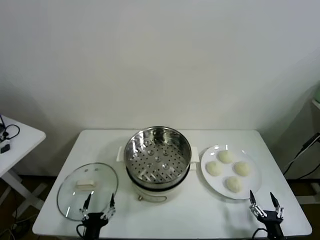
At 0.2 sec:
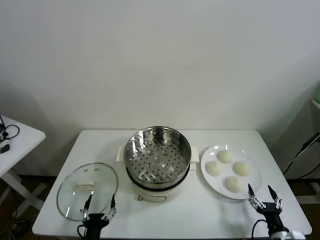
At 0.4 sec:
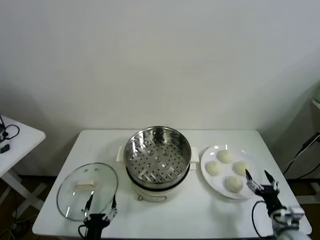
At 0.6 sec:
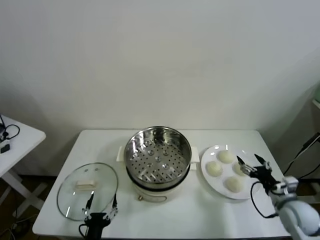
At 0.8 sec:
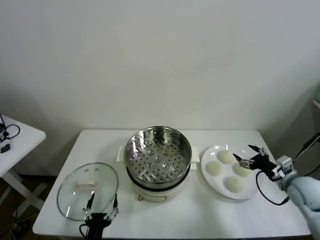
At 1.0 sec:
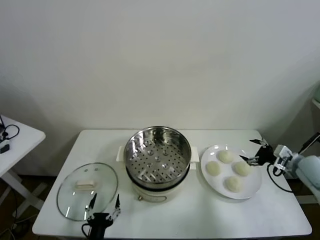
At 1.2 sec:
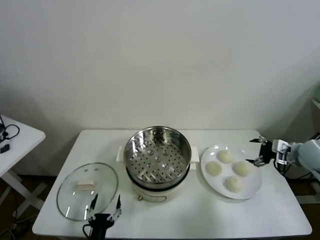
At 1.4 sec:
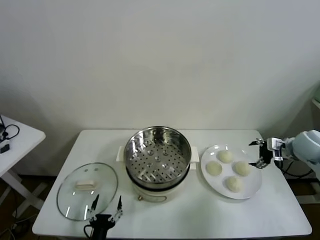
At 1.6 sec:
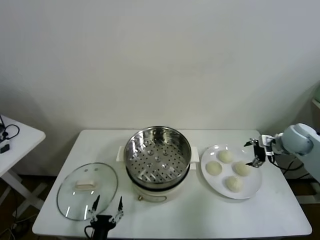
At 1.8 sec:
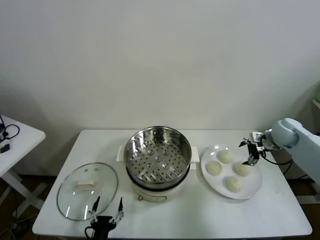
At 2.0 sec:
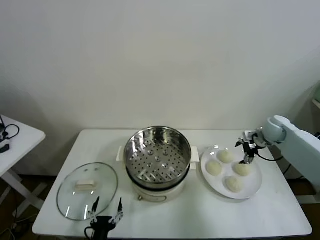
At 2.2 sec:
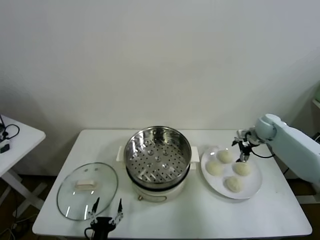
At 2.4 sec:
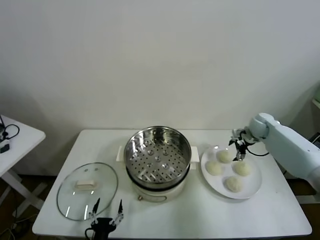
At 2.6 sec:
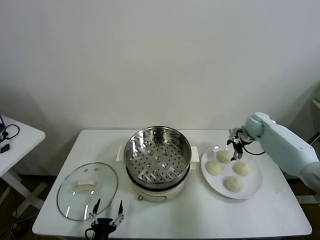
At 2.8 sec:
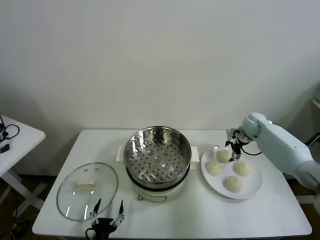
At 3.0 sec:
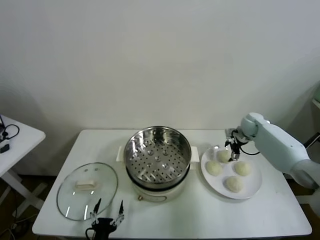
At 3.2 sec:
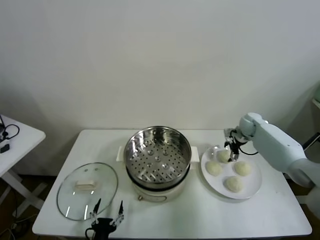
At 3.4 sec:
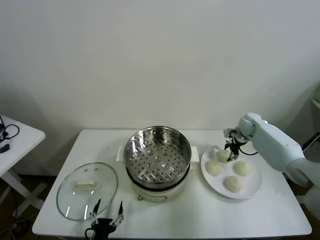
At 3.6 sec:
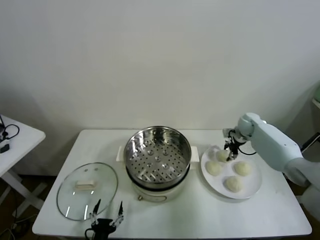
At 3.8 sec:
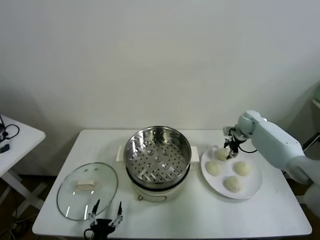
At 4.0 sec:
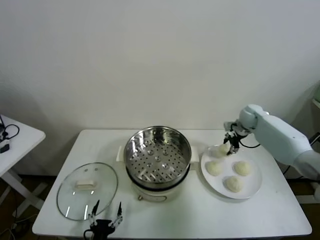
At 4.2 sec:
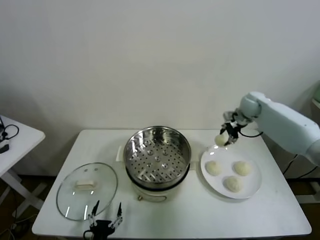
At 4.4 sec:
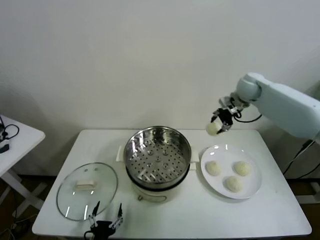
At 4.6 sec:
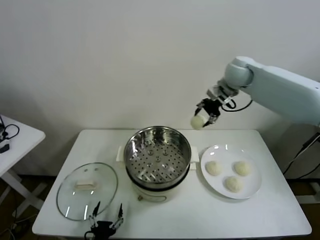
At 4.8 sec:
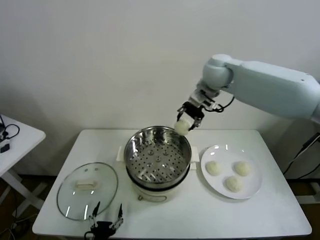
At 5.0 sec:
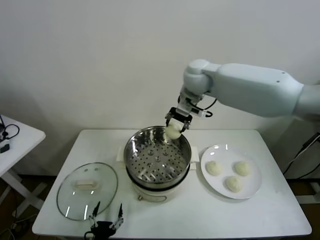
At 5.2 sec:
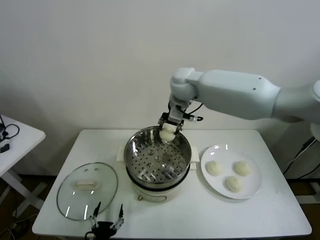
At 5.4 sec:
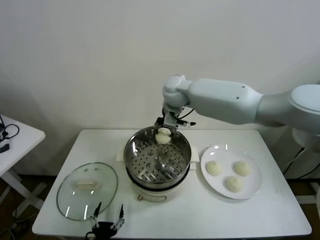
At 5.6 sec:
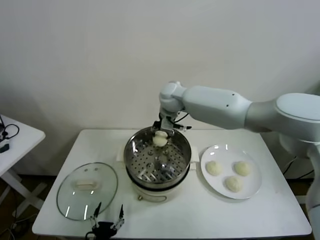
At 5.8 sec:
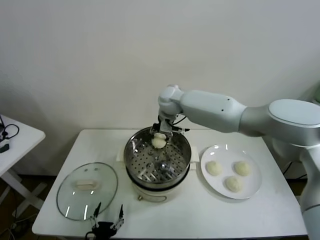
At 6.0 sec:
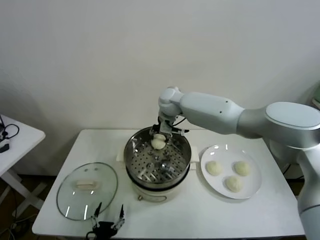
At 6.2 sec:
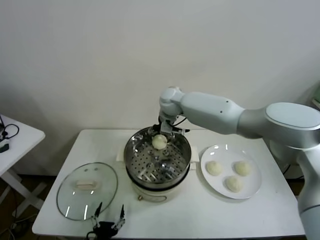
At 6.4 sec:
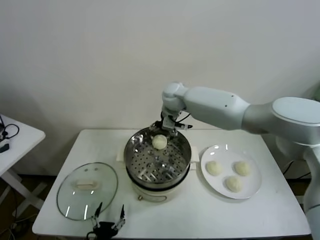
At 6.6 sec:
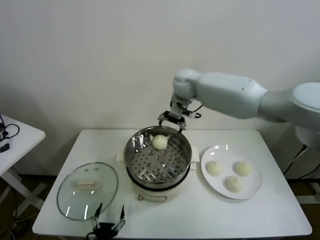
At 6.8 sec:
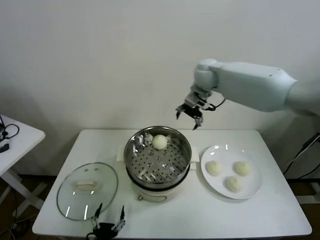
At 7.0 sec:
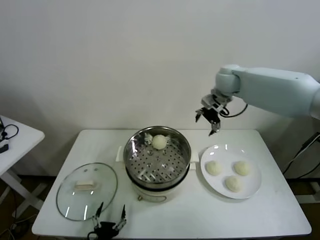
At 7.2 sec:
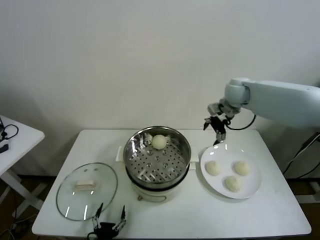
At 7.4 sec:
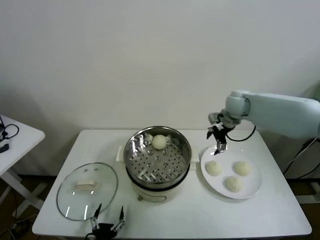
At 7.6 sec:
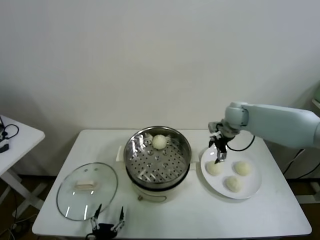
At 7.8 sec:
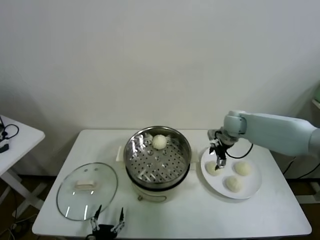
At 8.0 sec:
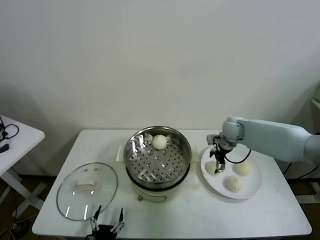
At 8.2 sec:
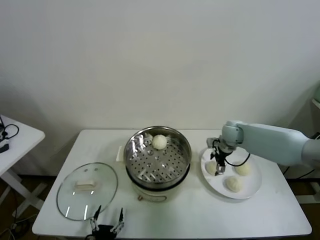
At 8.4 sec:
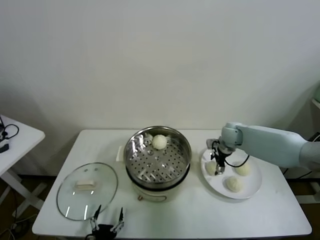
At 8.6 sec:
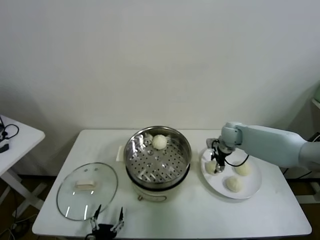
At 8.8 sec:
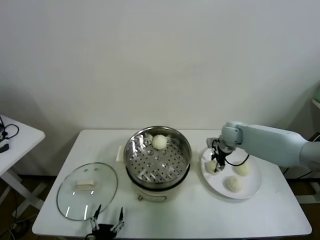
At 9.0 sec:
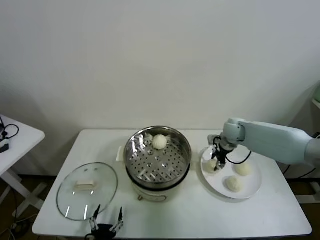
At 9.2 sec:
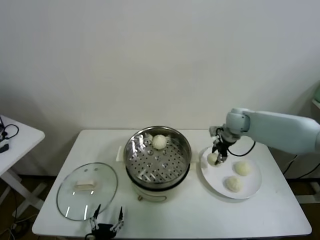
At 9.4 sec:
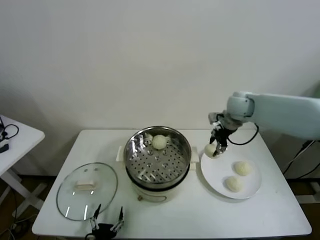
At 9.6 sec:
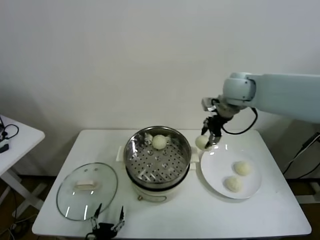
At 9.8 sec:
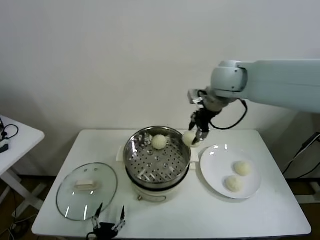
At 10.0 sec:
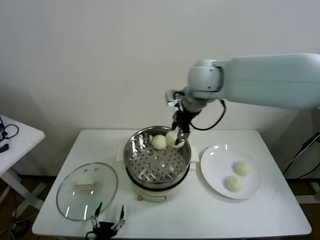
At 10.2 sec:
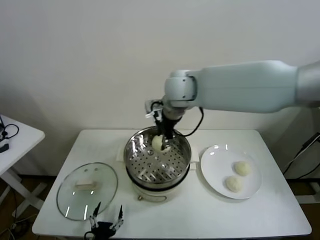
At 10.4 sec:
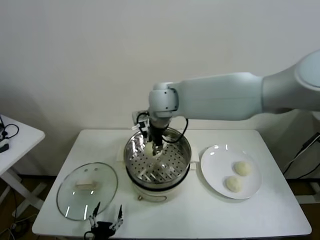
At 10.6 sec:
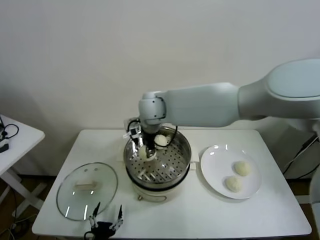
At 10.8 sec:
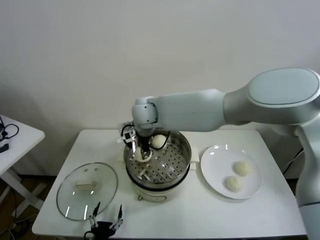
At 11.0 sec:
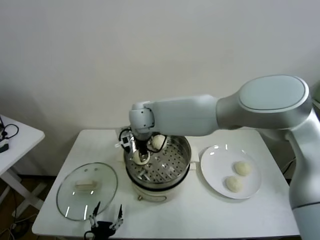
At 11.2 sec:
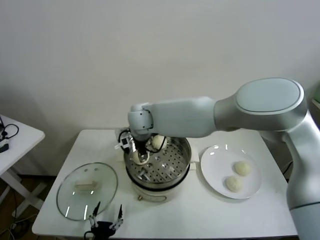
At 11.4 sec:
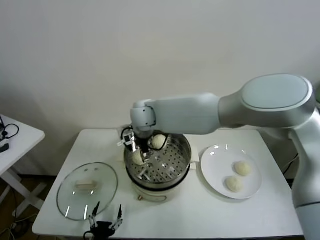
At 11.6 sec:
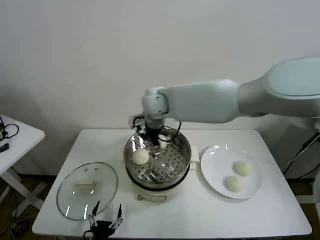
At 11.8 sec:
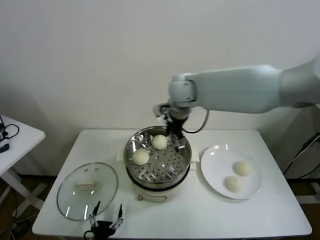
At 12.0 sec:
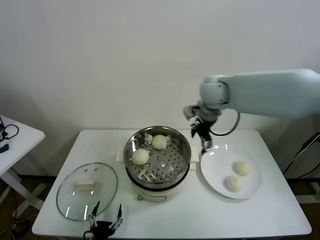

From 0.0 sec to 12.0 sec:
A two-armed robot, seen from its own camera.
Task of the whole recording: take steamed baozi put them in steamer.
Step, from 0.0 sec to 3.2 sec: Grasp the baozi in the plate with right gripper.
Step, from 3.6 sec to 6.2 sec: Place the baozi on the steamer with right gripper.
Step, from 6.4 sec to 8.6 sec: Grasp the baozi in the plate with right gripper.
Step, from 8.8 sec to 11.2 sec: Place the baozi on the steamer with right gripper.
From 1.6 sec to 3.0 sec: The right gripper heads forward, to the left and downward, covering roughly 15 cm.
From 3.0 sec to 4.4 sec: The right gripper shifts approximately 25 cm upward and to the left, and closes its fingers.
From 4.4 sec to 6.0 sec: The right gripper is displaced to the left by some 25 cm.
From 6.0 sec to 7.6 sec: The right gripper shifts some 25 cm to the right, and opens.
From 7.6 sec to 9.0 sec: The right gripper heads downward, covering roughly 5 cm, and closes up.
From 9.0 sec to 10.4 sec: The right gripper travels to the left and upward by about 35 cm.
From 10.4 sec to 12.0 sec: The right gripper shifts about 15 cm to the right, and opens its fingers.

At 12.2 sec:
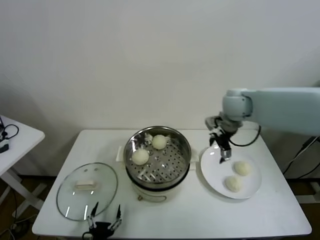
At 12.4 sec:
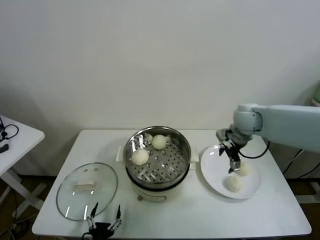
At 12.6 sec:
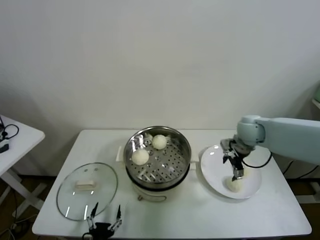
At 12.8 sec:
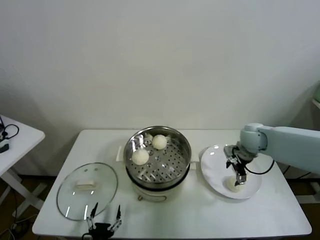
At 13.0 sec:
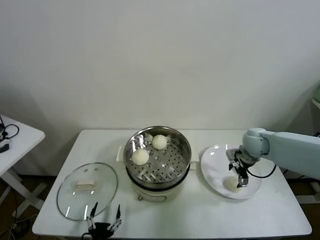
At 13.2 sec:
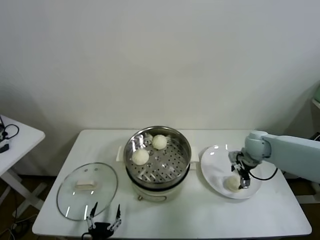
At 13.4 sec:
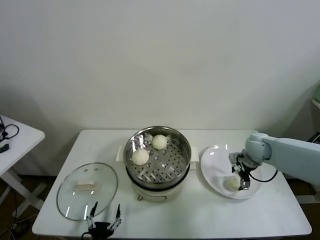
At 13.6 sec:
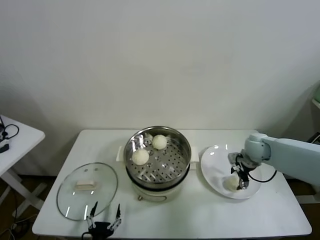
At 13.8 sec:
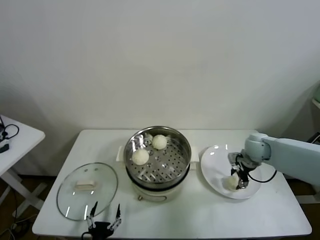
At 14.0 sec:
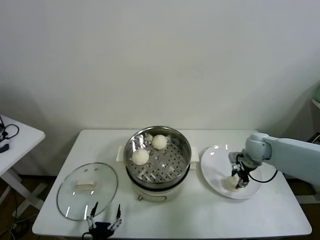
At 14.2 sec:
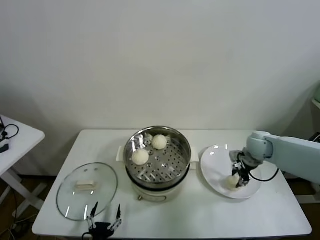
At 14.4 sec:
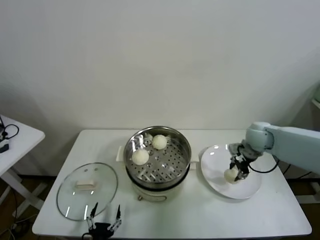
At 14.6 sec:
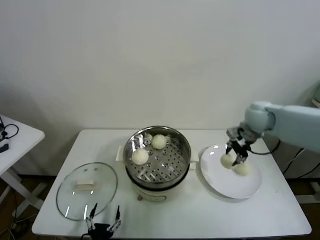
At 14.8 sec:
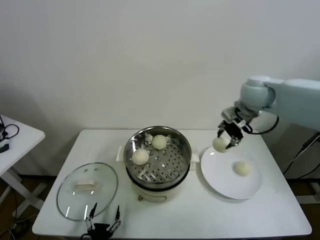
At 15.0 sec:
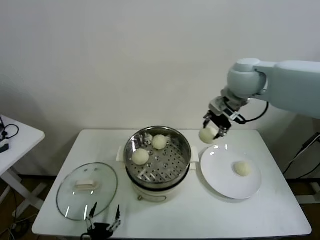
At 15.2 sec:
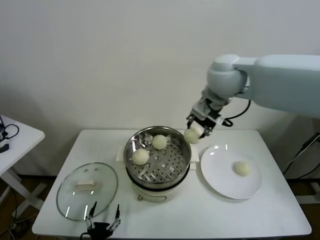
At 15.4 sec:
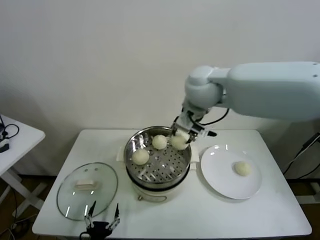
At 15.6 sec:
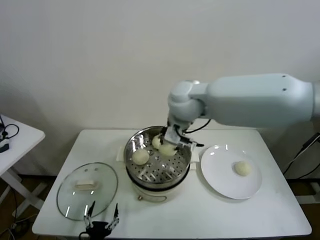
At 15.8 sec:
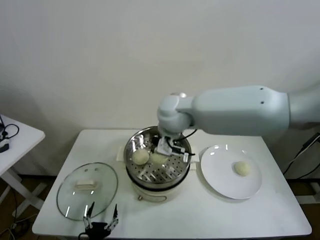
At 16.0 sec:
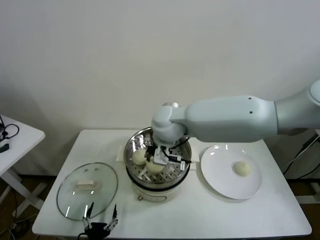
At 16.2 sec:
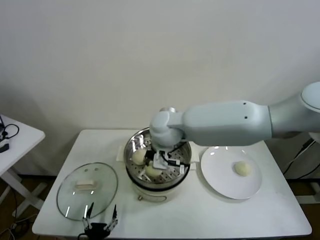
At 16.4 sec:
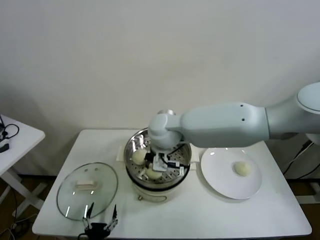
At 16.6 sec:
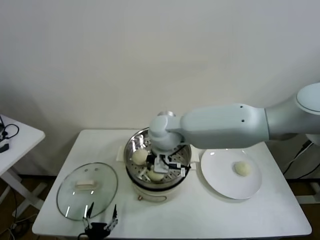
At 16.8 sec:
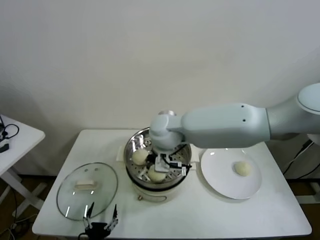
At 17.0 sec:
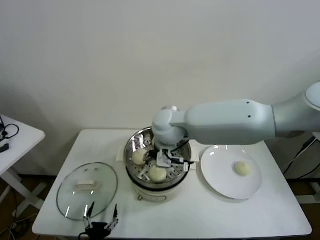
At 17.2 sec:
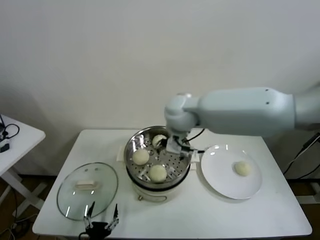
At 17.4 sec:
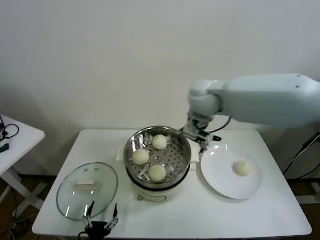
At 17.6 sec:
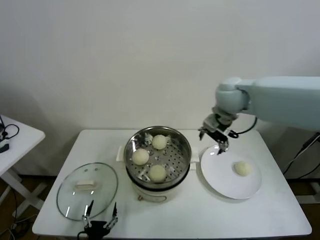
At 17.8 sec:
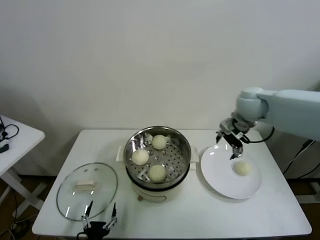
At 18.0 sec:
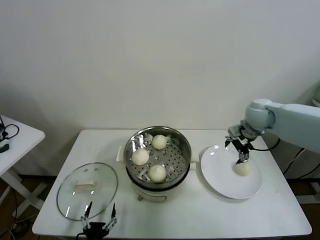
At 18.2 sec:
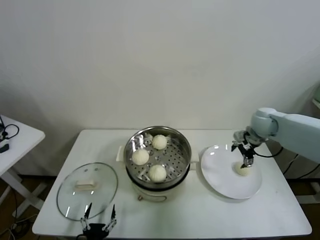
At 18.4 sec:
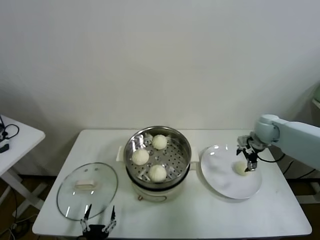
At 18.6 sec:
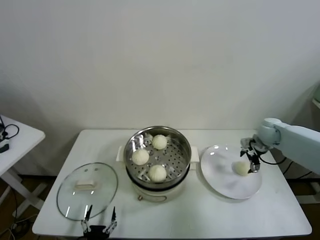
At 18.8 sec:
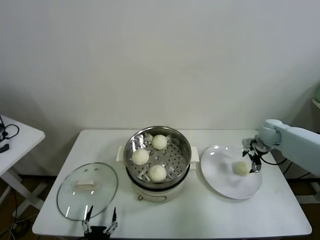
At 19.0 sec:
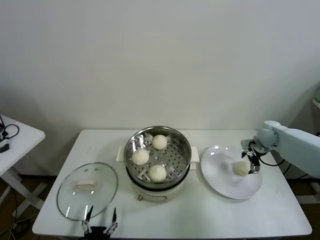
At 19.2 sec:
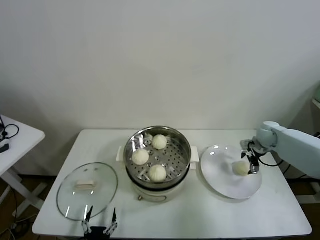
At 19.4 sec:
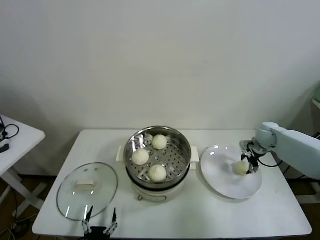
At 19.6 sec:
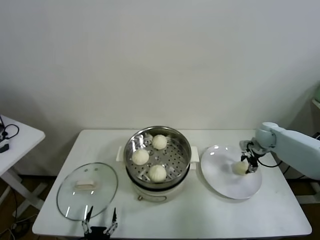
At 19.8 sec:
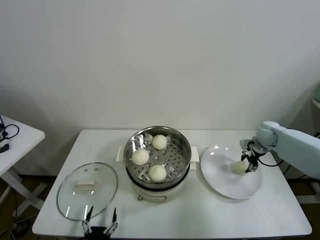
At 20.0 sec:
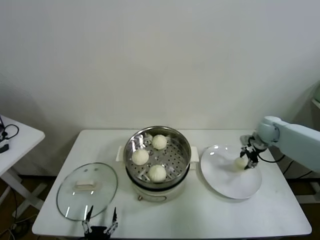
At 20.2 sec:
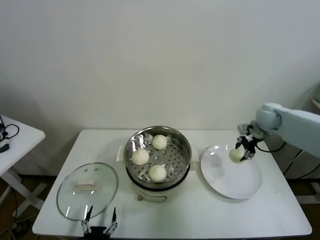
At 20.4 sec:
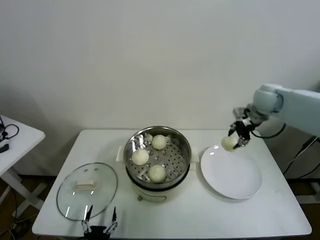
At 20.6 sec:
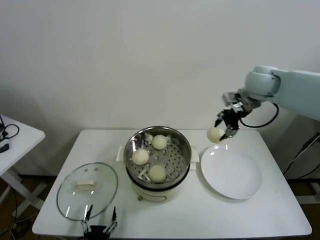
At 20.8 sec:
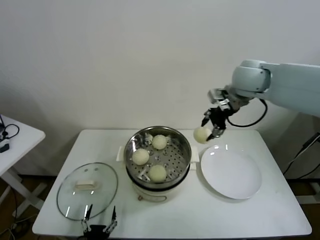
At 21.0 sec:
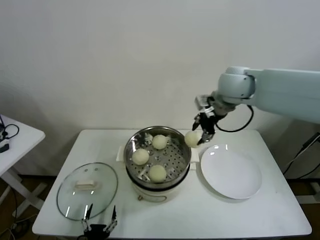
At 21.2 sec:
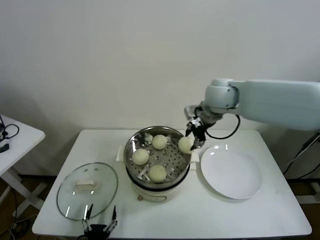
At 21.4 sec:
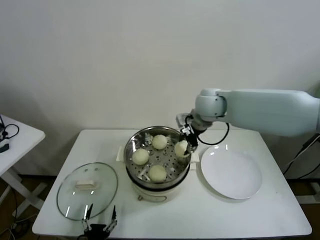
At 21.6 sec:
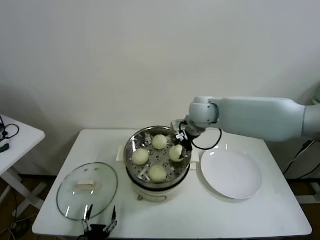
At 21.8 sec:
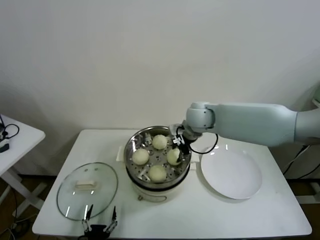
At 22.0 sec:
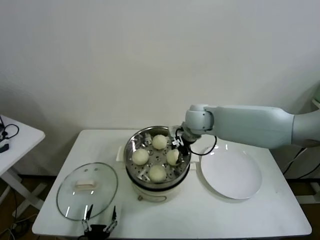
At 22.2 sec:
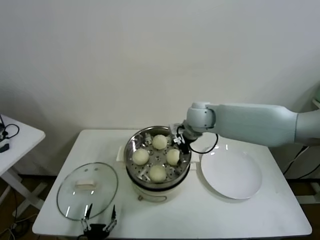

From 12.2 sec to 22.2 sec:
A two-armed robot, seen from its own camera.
Task of the whole recording: take steamed baozi put them in steamer.
Step, from 12.2 sec to 13.8 sec: Grasp the baozi in the plate with right gripper.
Step, from 14.0 sec to 16.8 sec: Place the baozi on the steamer with right gripper.
Step, from 17.0 sec to 19.4 sec: Grasp the baozi in the plate with right gripper.
Step, from 19.6 sec to 22.0 sec: Place the baozi on the steamer with right gripper.
From 12.2 sec to 13.6 sec: The right gripper travels downward and to the right by approximately 20 cm.
From 13.6 sec to 15.0 sec: The right gripper heads upward and to the left, covering about 30 cm, and closes.
From 15.0 sec to 16.4 sec: The right gripper moves to the left and downward, some 25 cm.
From 16.4 sec to 18.0 sec: The right gripper goes some 30 cm to the right, and opens.
From 18.0 sec to 19.4 sec: The right gripper shifts about 15 cm downward and to the right.
From 19.4 sec to 20.8 sec: The right gripper shifts approximately 30 cm upward and to the left, and closes up.
From 20.8 sec to 22.2 sec: The right gripper travels downward and to the left by some 20 cm, and opens up.
